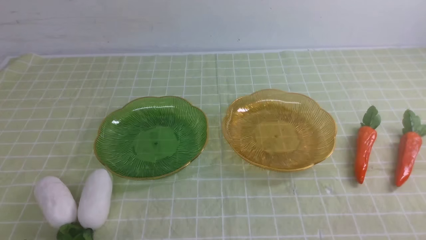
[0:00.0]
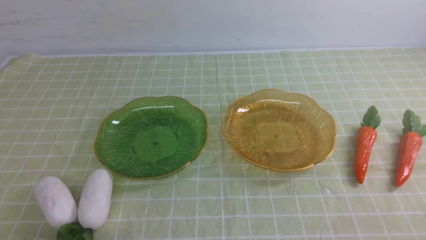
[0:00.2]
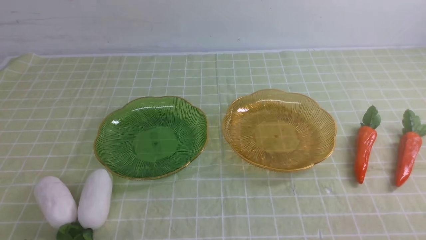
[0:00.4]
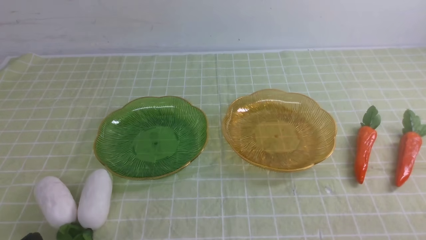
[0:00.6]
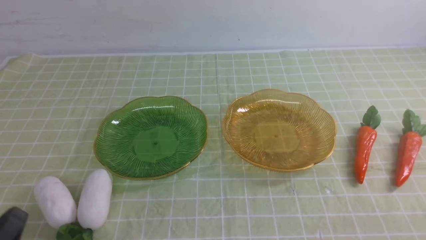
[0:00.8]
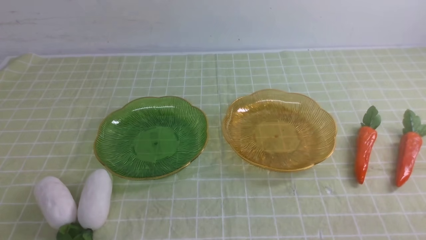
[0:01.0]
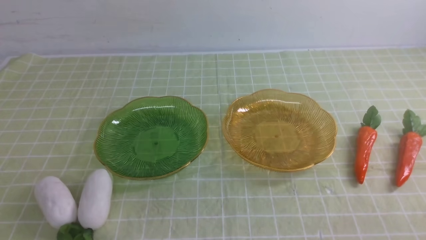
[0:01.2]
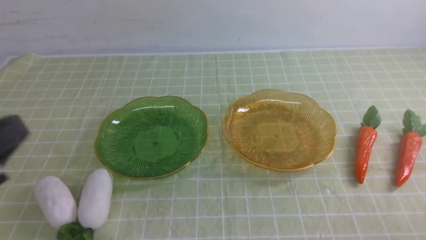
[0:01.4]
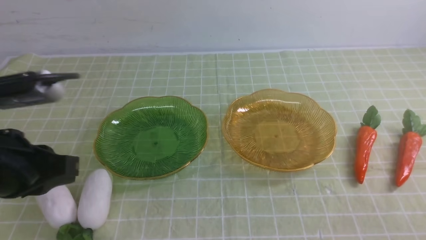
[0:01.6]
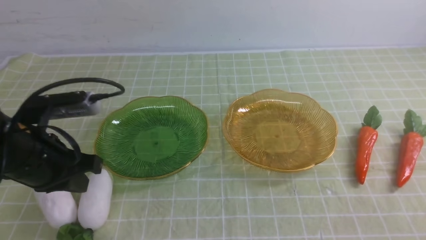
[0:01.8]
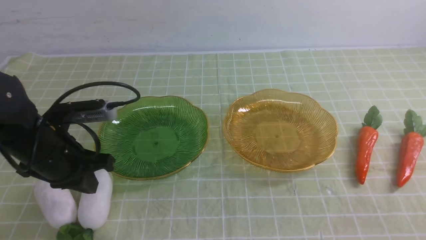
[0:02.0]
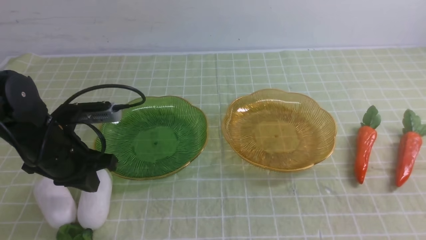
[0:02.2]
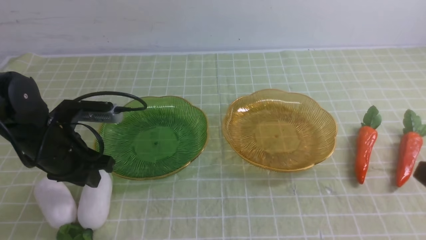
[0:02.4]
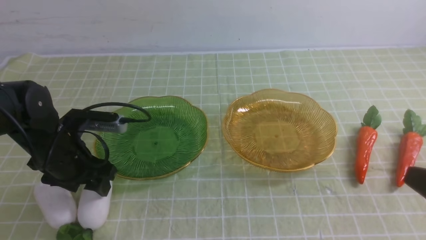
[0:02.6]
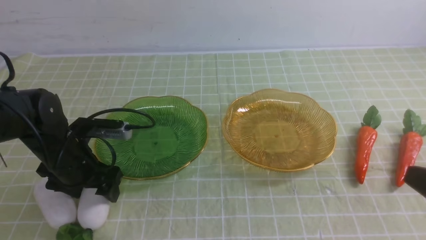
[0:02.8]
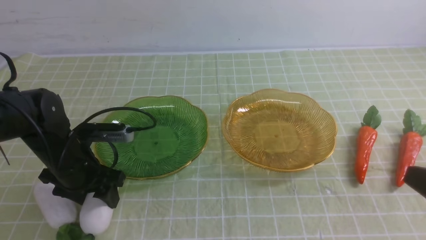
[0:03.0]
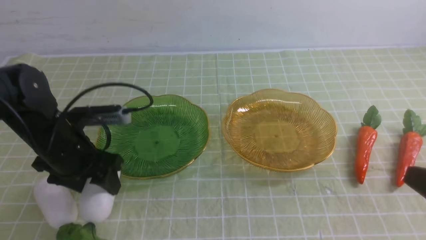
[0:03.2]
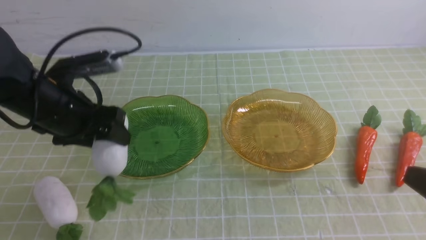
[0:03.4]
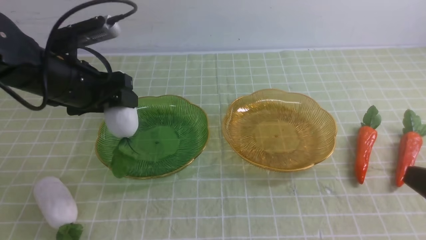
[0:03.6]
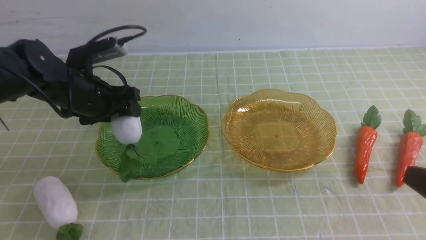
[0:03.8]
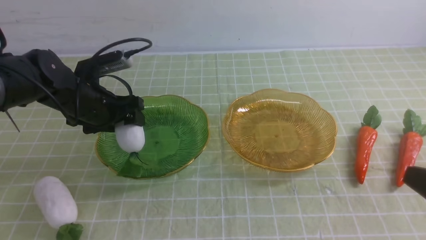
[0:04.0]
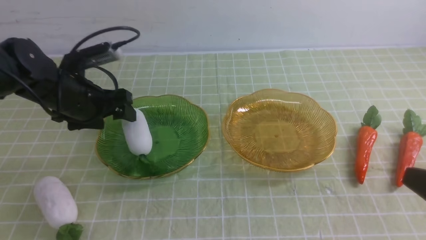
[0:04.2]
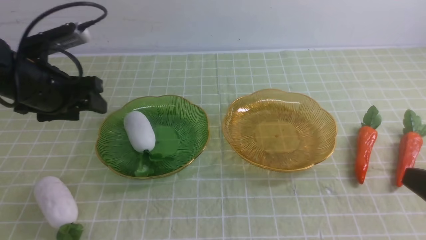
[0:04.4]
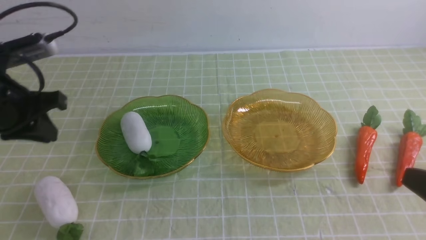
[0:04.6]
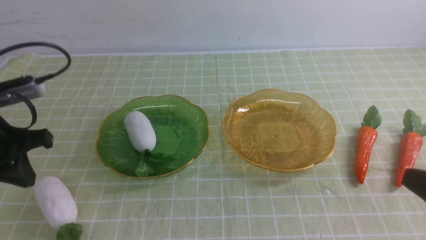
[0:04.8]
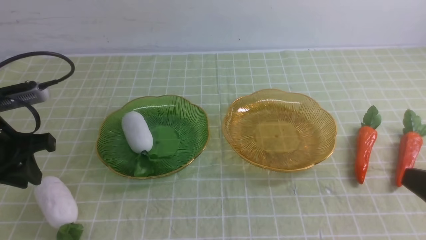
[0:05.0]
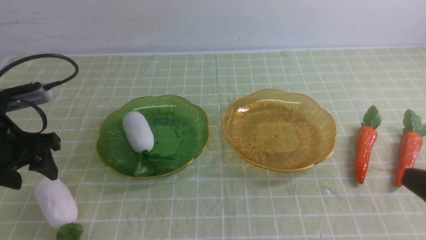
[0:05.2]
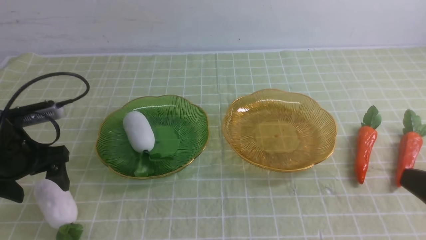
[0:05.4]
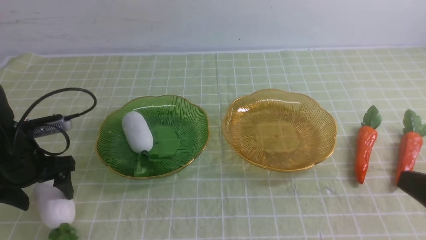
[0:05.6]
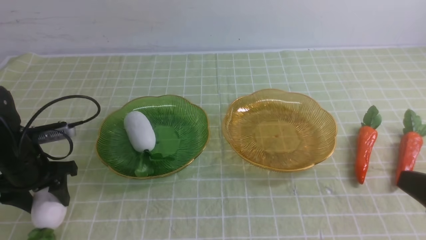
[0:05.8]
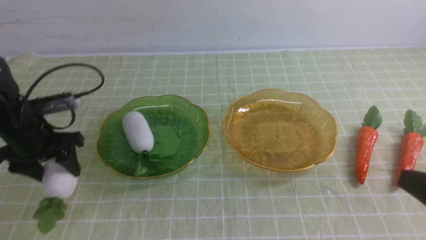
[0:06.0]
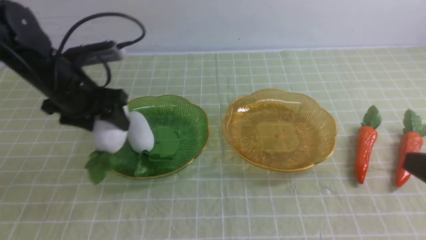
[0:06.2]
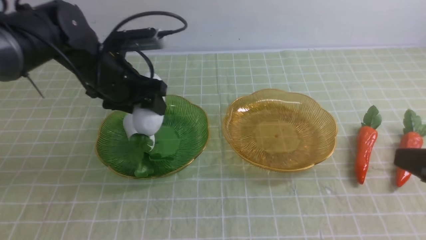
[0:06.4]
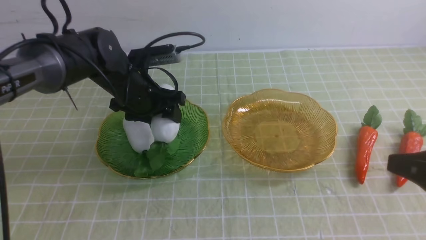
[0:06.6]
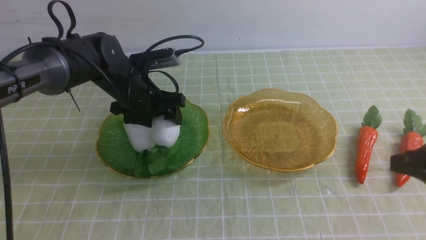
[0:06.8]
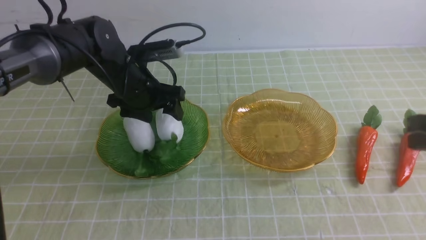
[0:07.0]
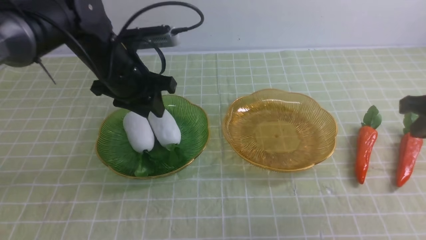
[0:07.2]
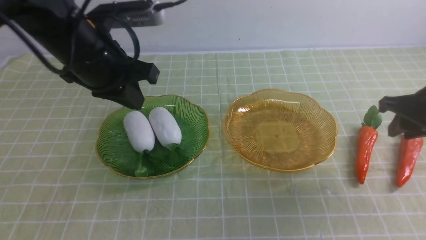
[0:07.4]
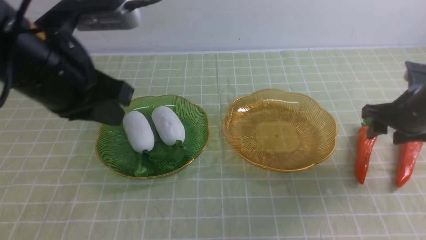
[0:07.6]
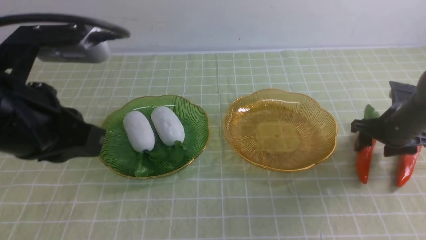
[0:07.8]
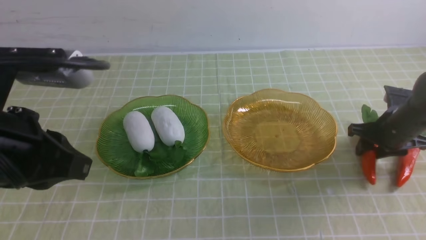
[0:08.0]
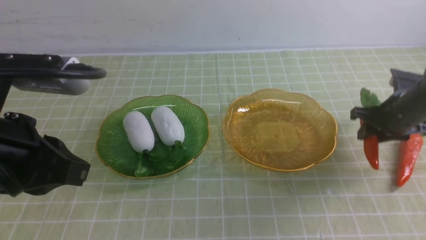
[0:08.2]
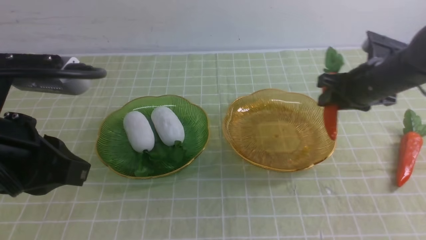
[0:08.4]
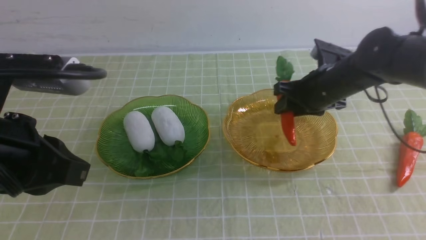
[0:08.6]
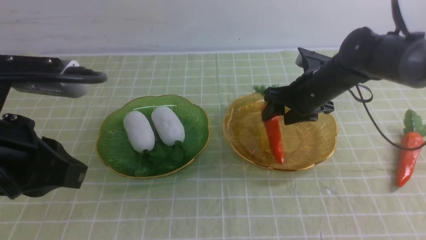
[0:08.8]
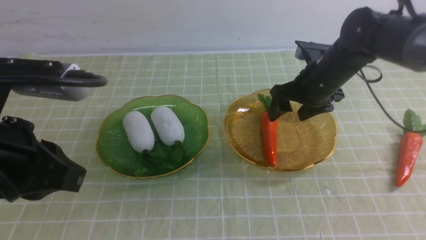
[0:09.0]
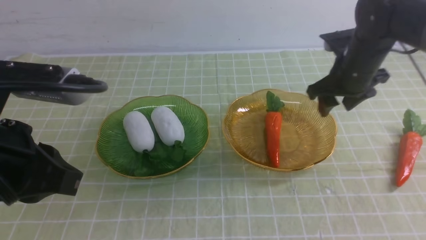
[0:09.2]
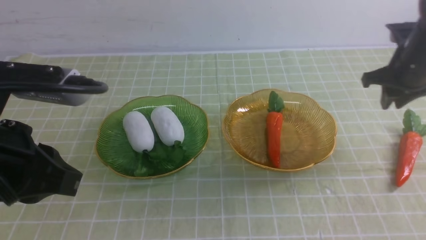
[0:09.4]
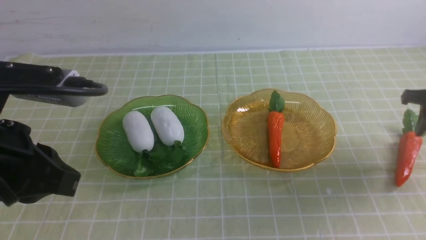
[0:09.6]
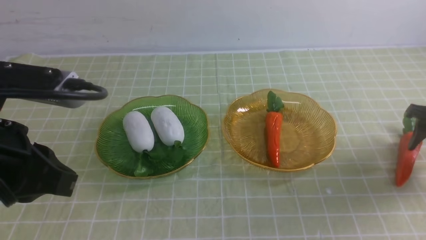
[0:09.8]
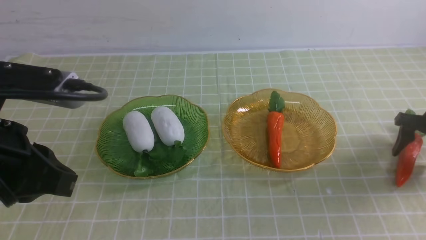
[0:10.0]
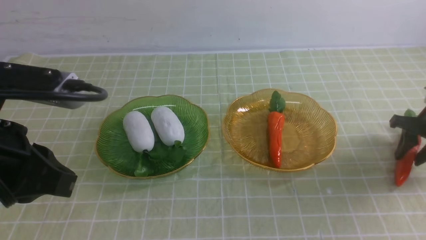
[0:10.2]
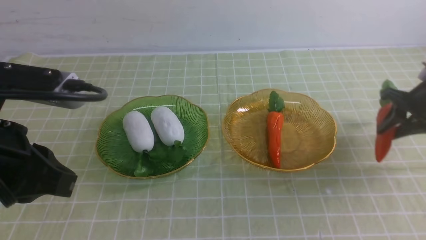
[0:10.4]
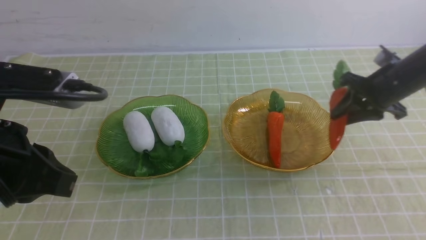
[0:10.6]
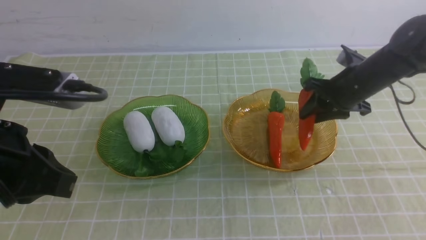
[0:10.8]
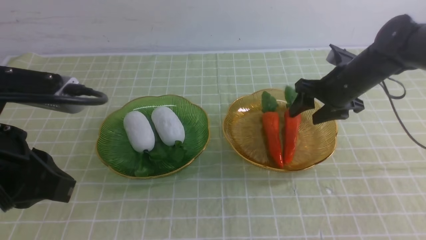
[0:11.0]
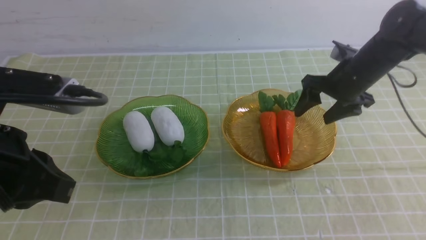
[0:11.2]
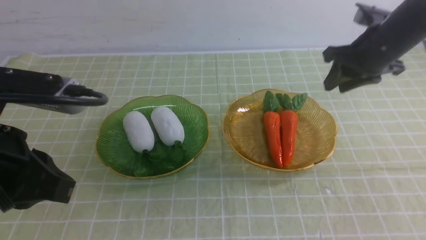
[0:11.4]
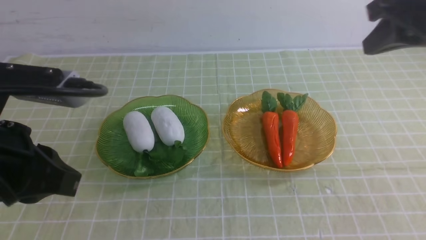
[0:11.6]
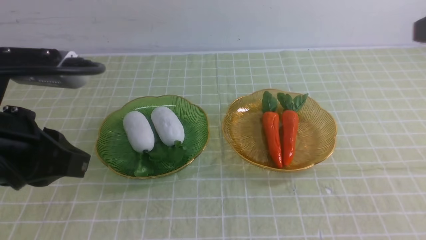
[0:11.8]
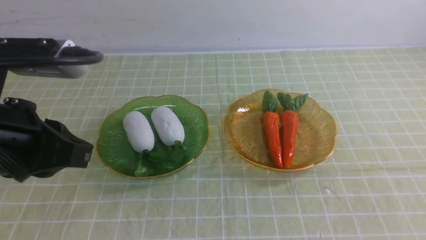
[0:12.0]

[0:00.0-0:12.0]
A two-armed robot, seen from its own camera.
Step, 0:00.0 to 0:07.6: use the left arm to grab a radish and put it into the left plate.
Step, 0:07.8 to 0:09.8: use the right arm to grab a carrot and put it into the right plate.
0:00.0 to 0:01.6: The left gripper shifts about 20 cm upward and forward.
0:01.6 to 0:03.0: The left gripper is displaced downward and forward by some 15 cm, and opens up.
0:03.0 to 0:04.4: The left gripper swings up and down, roughly 10 cm each way, with 2 reversals.
0:04.4 to 0:06.0: The left gripper is displaced downward by approximately 5 cm, and closes and opens again.
0:06.0 to 0:07.6: The right gripper goes roughly 25 cm forward, and opens. Meanwhile the left gripper heads upward, to the right and backward, covering roughly 20 cm, and closes up.
0:07.6 to 0:09.0: The right gripper is displaced to the left and forward by some 15 cm. Meanwhile the left gripper moves backward, roughly 10 cm.
0:09.0 to 0:10.4: The right gripper moves to the right, some 15 cm, and closes up.
0:10.4 to 0:12.0: The right gripper is displaced backward and upward by some 35 cm, and closes its fingers.

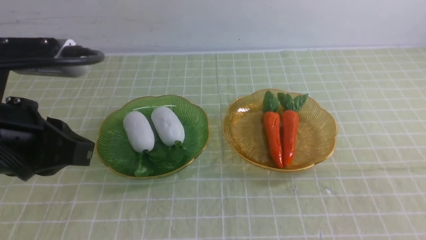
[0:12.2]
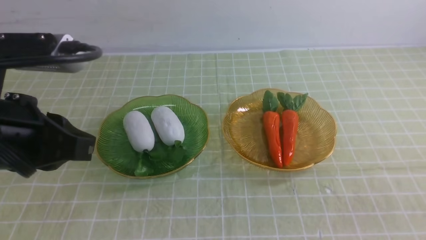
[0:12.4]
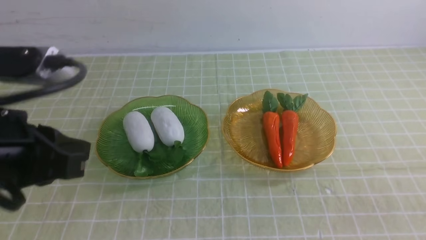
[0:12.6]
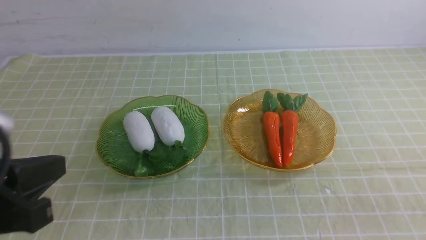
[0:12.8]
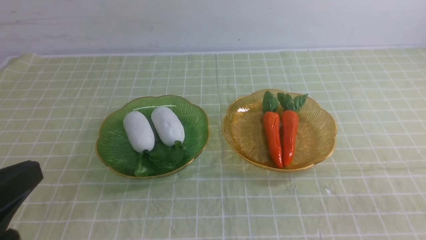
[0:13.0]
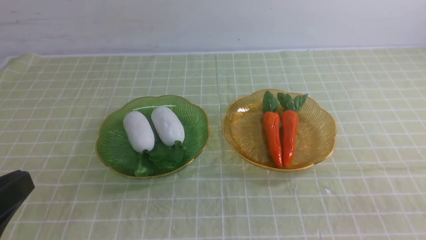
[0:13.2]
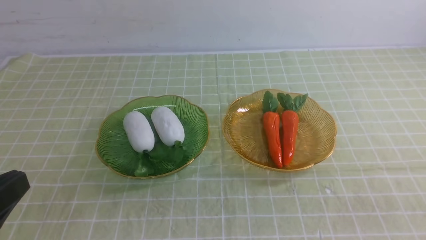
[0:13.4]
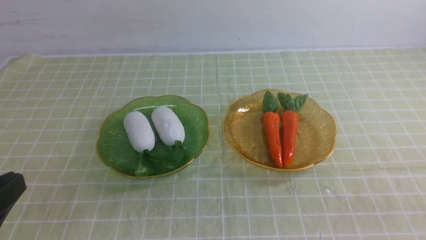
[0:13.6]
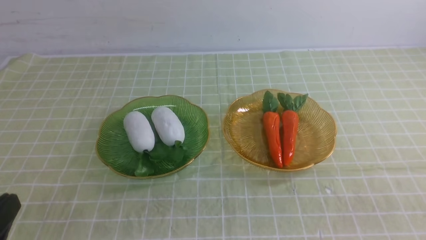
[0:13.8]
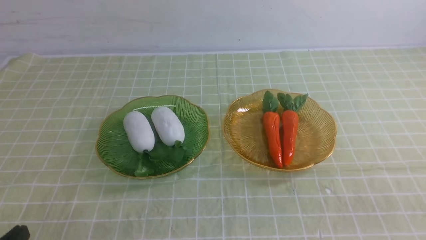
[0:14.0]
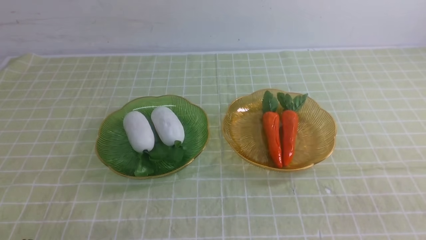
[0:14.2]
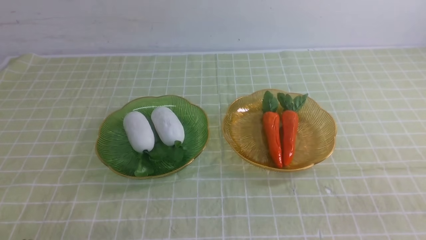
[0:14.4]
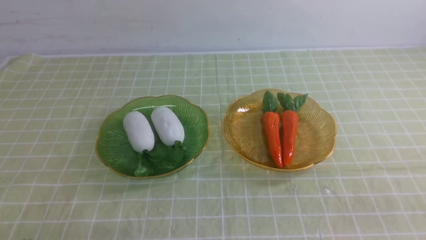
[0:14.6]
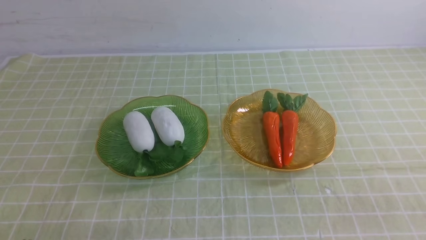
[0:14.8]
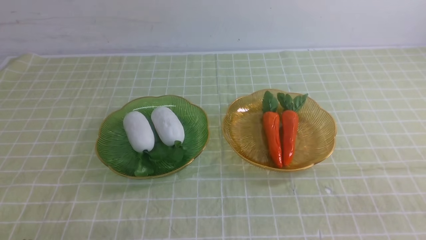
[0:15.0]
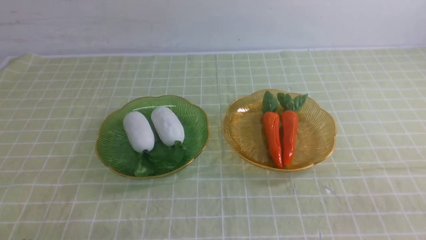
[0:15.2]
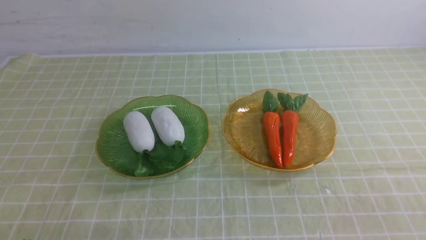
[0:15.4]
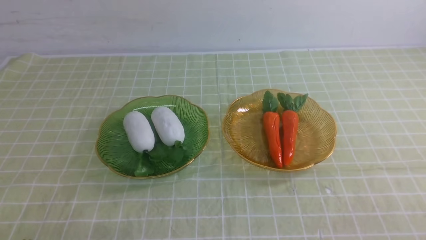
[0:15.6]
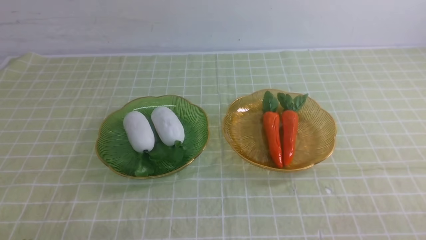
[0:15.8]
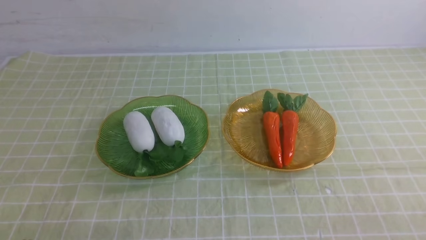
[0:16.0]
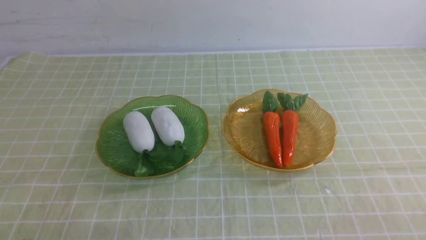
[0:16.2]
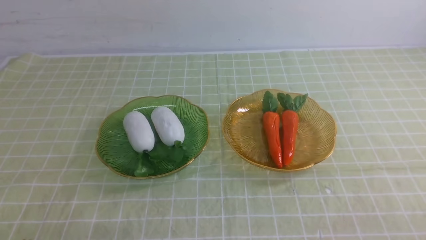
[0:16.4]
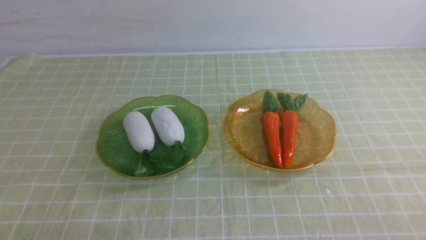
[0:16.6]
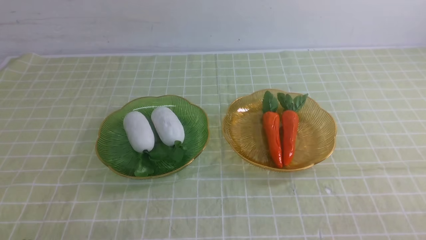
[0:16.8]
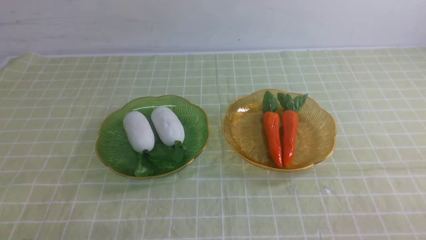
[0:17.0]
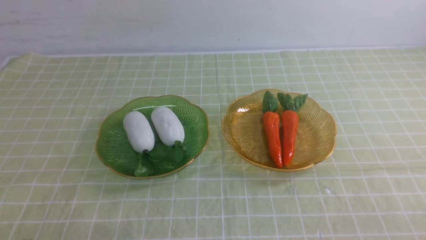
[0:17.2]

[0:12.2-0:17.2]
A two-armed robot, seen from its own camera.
0:12.2 to 0:13.8: The left gripper goes some 15 cm downward, backward and to the left.
0:13.8 to 0:15.6: The left gripper shifts some 5 cm downward.
